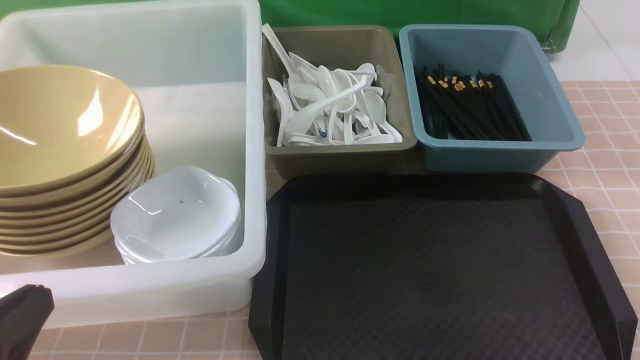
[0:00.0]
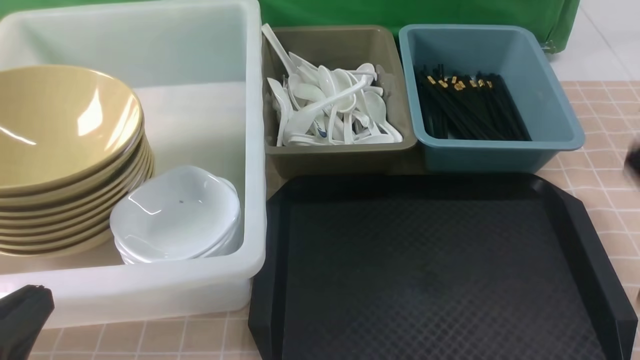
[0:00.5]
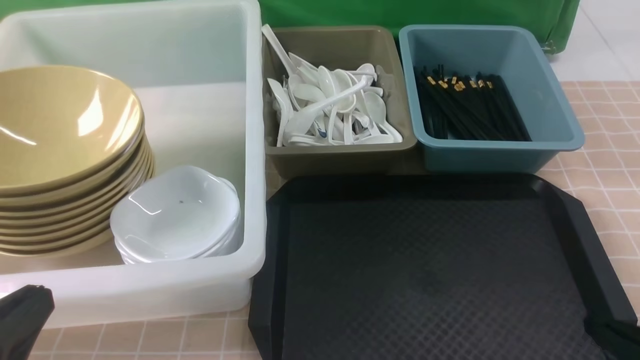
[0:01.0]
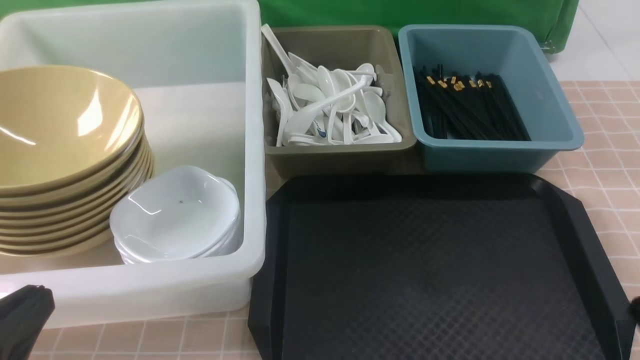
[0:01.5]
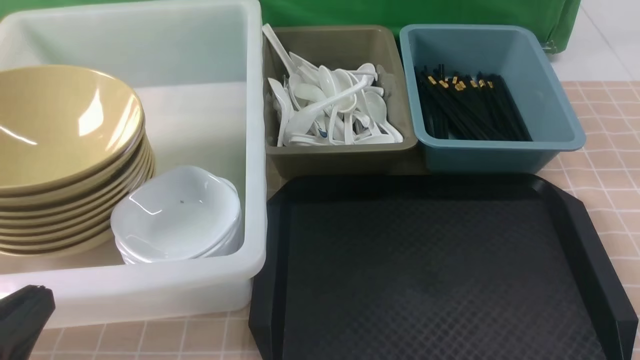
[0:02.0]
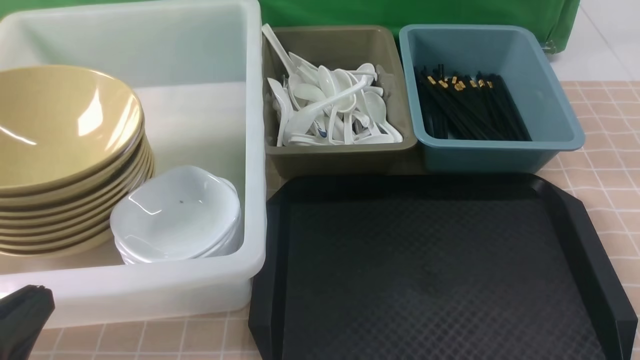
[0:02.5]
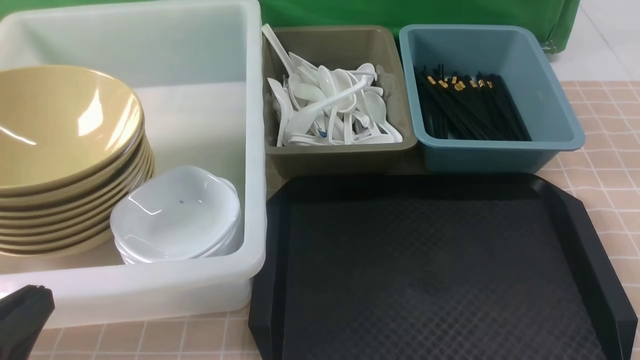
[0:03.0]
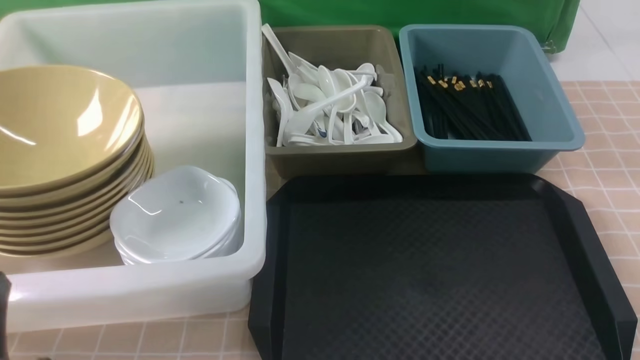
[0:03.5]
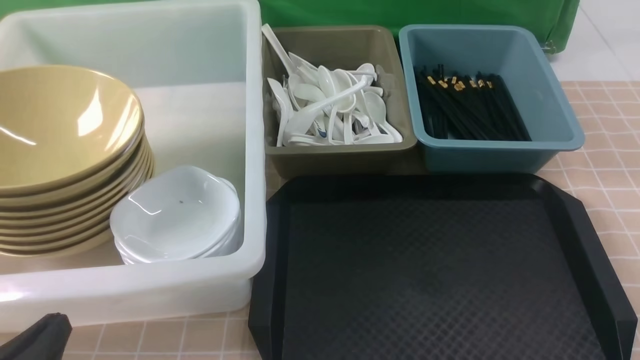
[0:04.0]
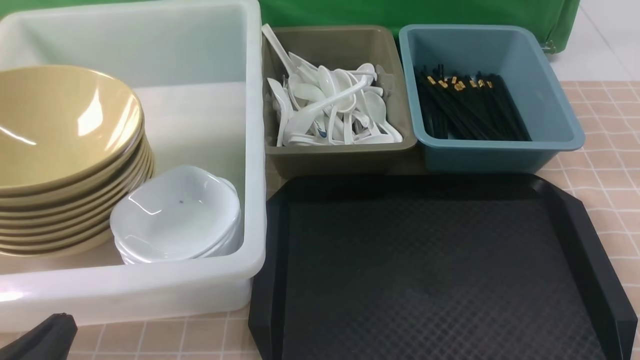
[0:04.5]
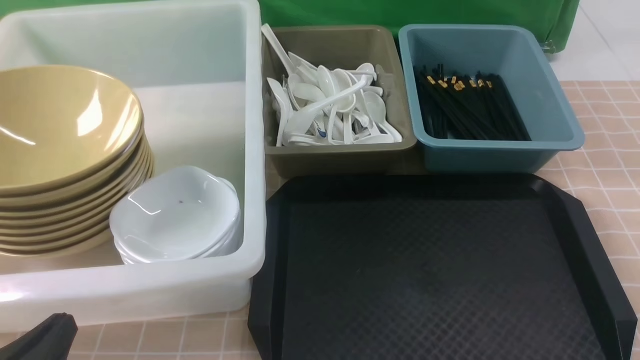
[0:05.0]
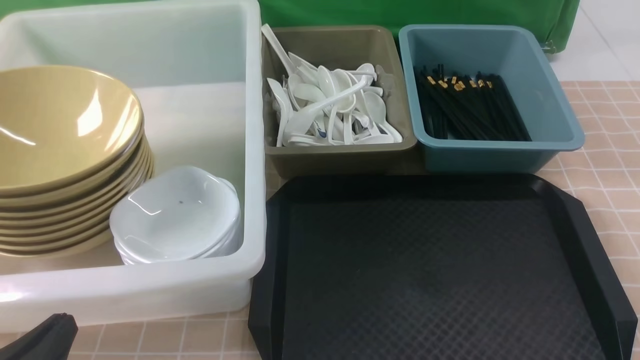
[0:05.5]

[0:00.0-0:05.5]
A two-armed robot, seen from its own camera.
Task of the whole recording: on brown table put chopsticks spoon bowls plates into blue grey white boxes.
0:02.0 to 0:03.5: The left gripper is displaced downward by about 5 cm.
0:03.5 to 0:05.5: The grippers stay close to where they were, moving slightly.
